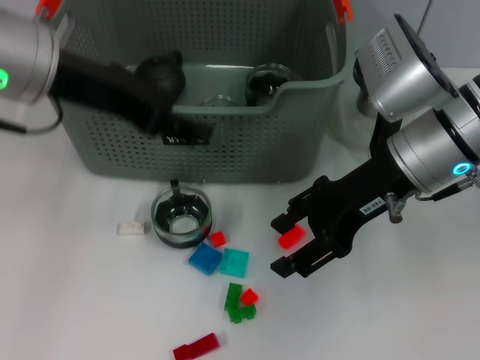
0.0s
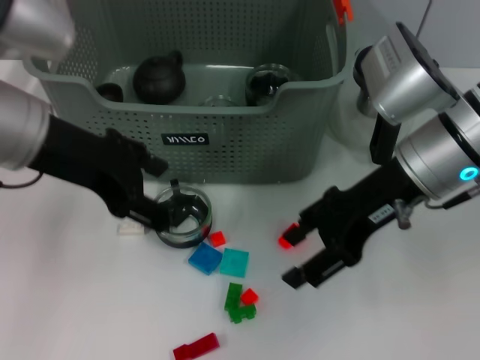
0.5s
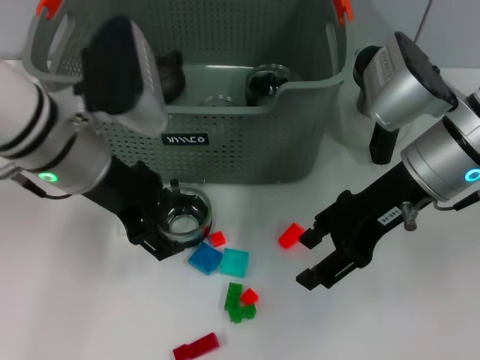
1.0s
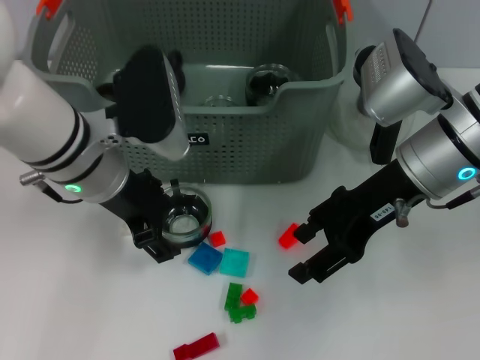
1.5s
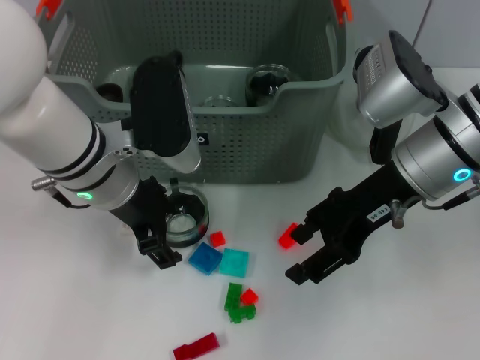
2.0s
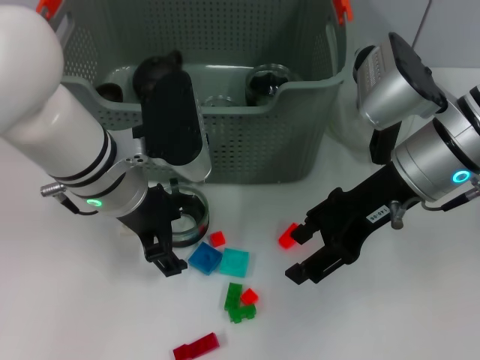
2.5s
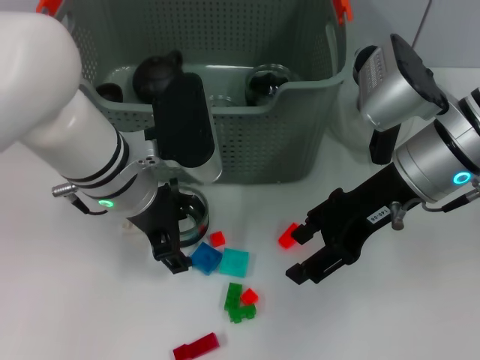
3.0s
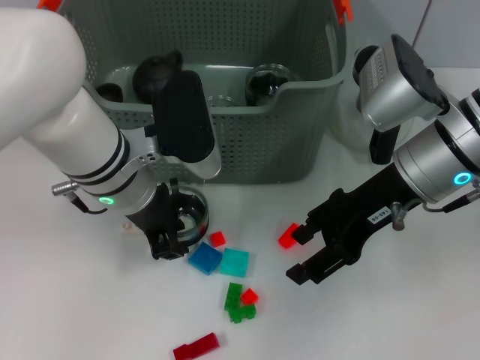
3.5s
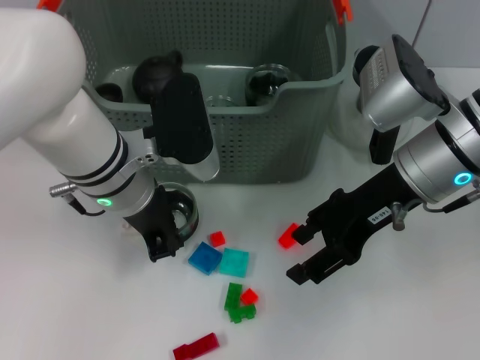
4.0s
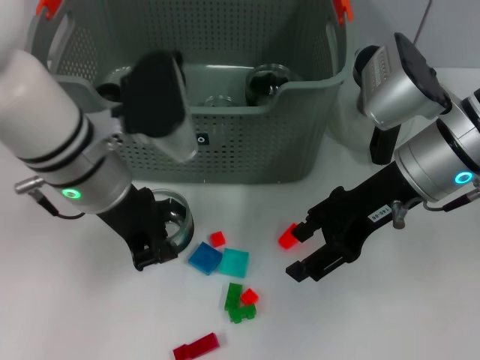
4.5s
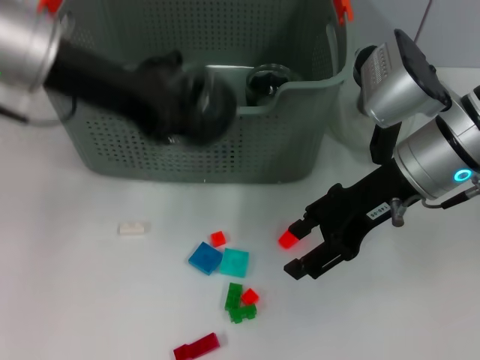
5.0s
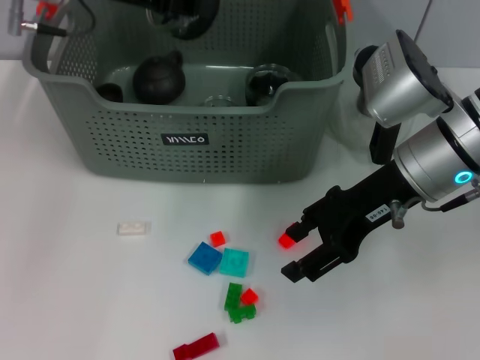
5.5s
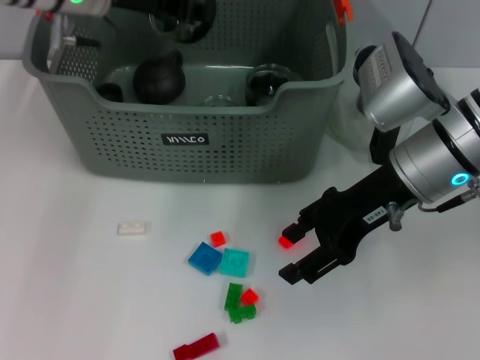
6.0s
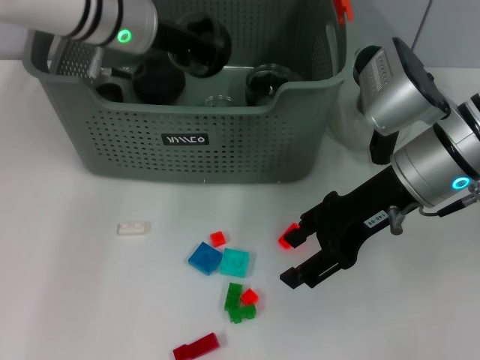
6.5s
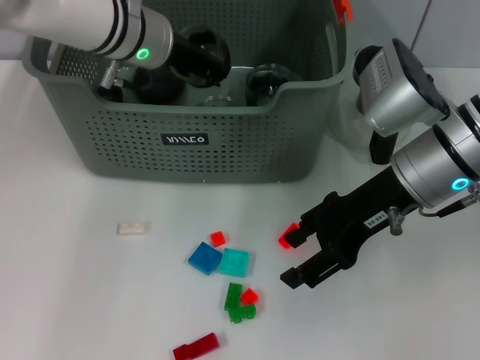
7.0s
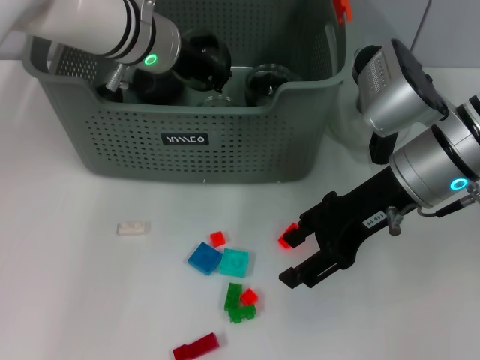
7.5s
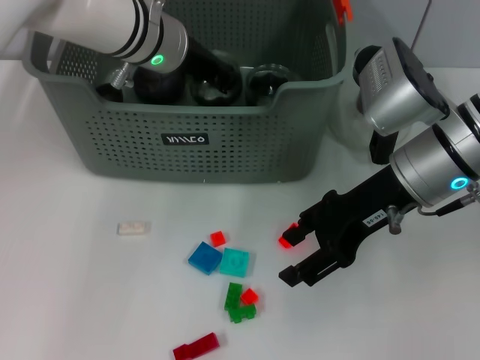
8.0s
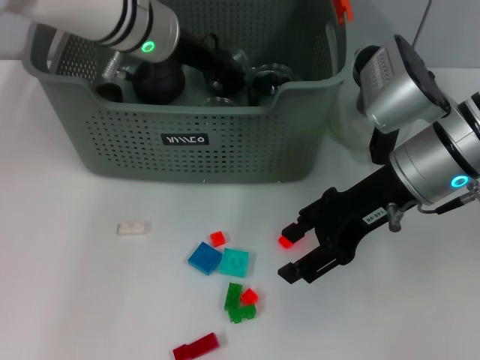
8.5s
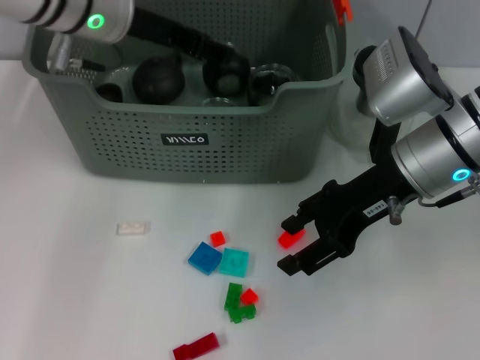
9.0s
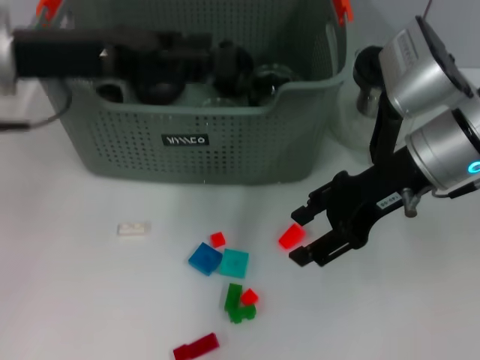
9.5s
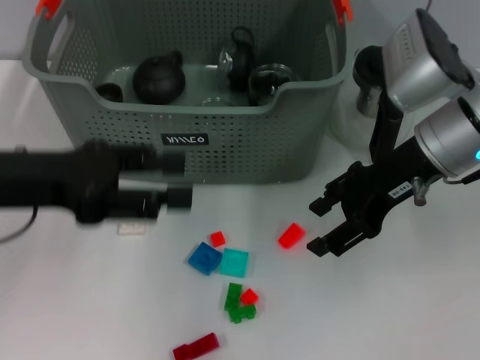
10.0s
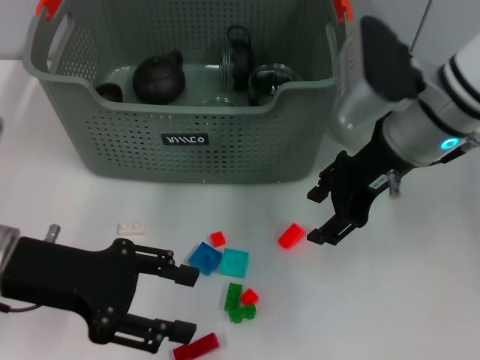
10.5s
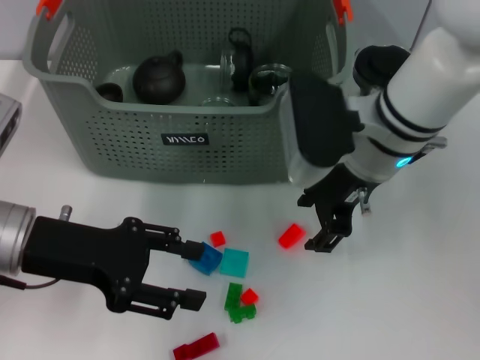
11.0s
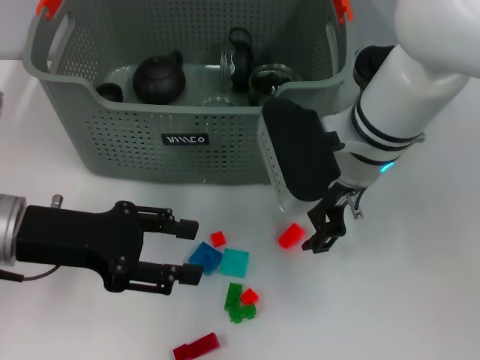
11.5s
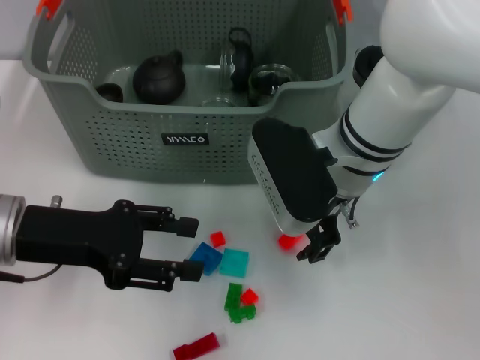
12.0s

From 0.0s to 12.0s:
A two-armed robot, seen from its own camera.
Task of the whole recording: pick up the teacup on the table and place it into the storage bin, pick up the block on the table and place it into the storage bin.
Step, from 0.0s to 3.5s: Grasp the cup with left gripper.
Step, from 4.0s to 9.5s: Place the cup in the storage box with left gripper.
From 0.0s to 2.0s: The left gripper heads downward and to the right, covering roughly 15 cm.
From 2.0s to 4.0s: The left gripper closes its fingers.
From 4.0s to 6.0s: The left gripper travels forward, upward and to the left by some 15 cm.
From 6.0s to 8.0s: The left gripper shifts some 5 cm to the right.
From 8.0s to 10.0s: The left gripper goes some 25 cm backward and to the left, and opens its fingers.
From 10.0s to 12.0s: The right gripper travels to the left by about 10 cm, while the left gripper heads downward, covering approximately 5 cm.

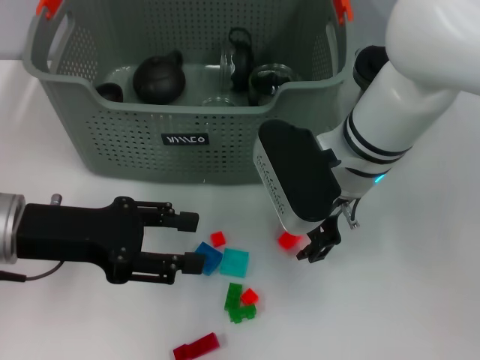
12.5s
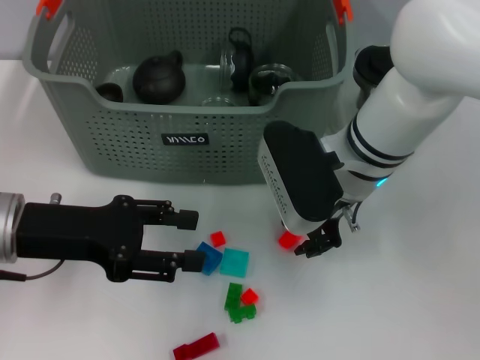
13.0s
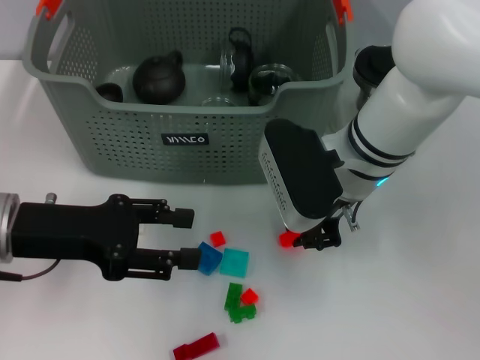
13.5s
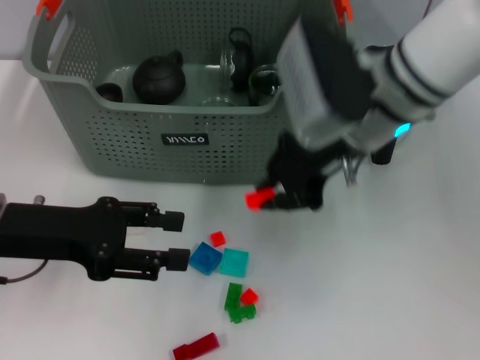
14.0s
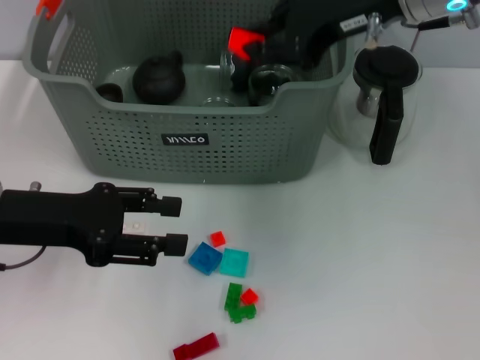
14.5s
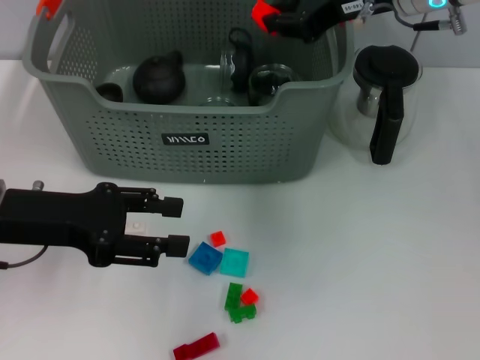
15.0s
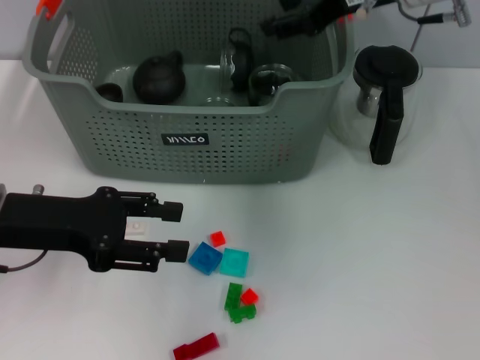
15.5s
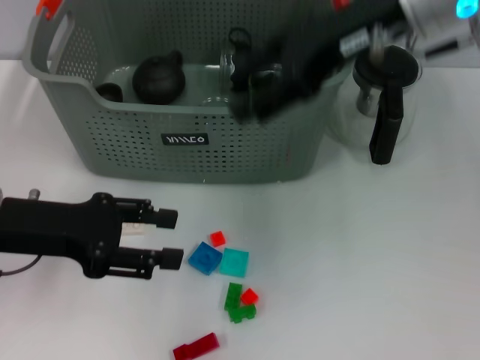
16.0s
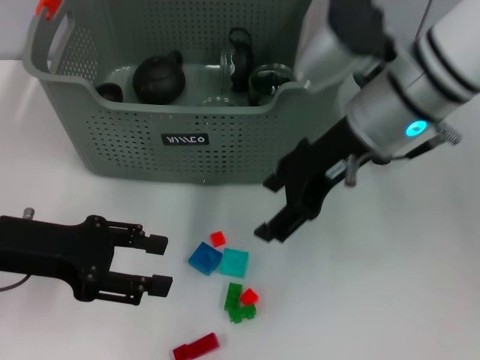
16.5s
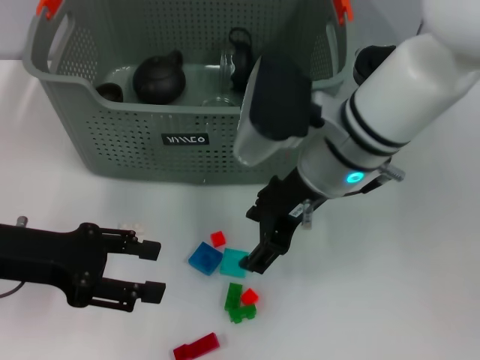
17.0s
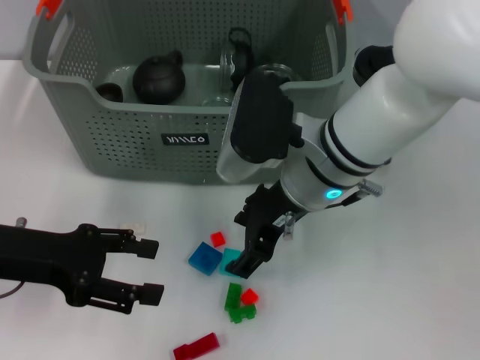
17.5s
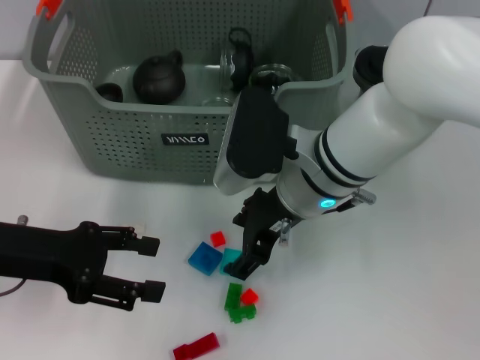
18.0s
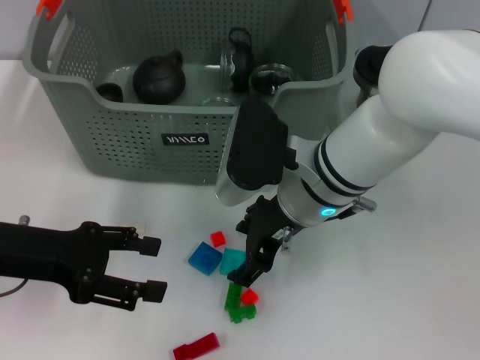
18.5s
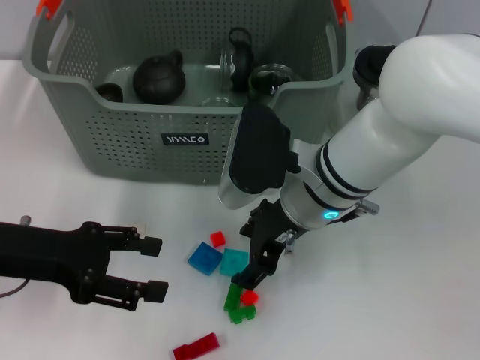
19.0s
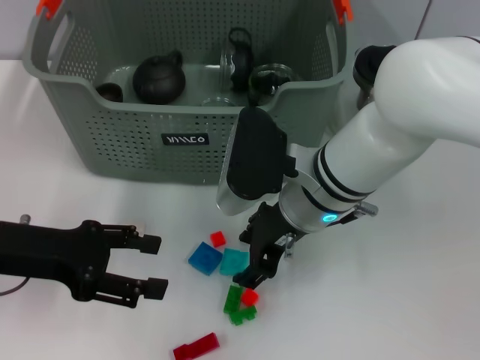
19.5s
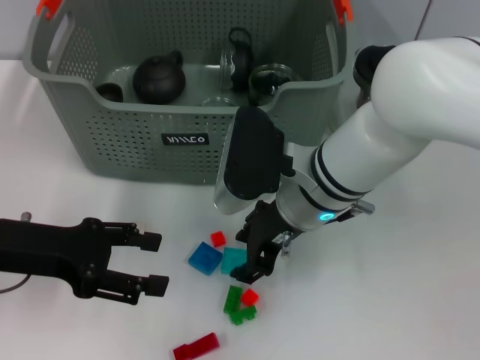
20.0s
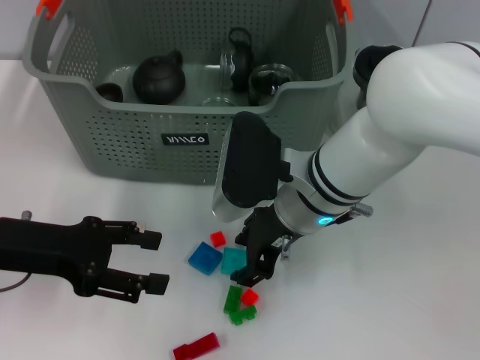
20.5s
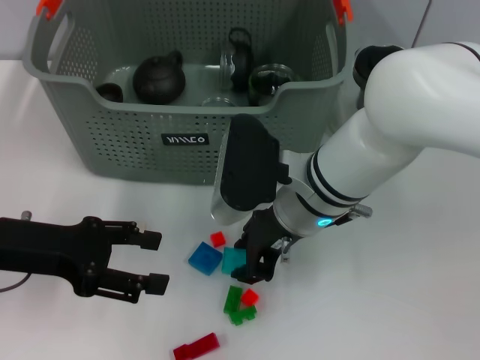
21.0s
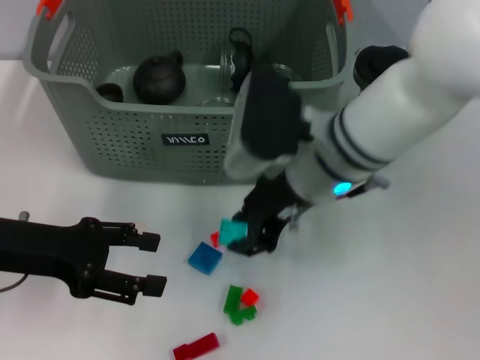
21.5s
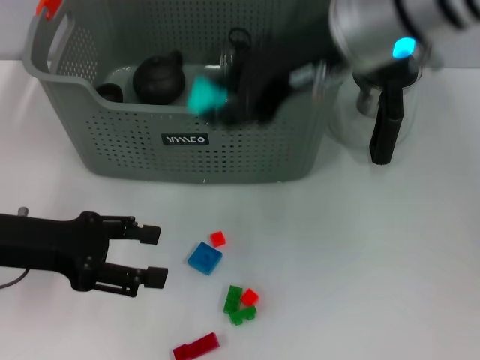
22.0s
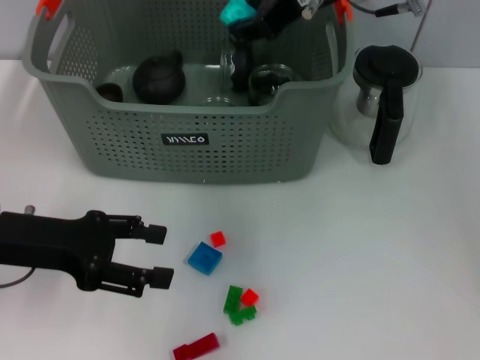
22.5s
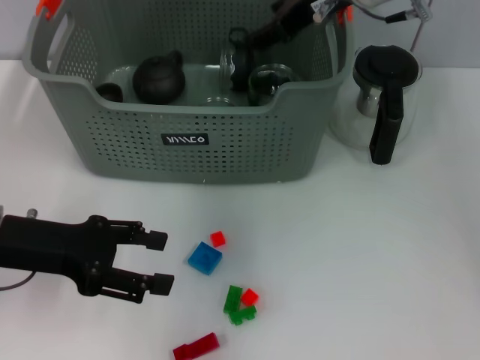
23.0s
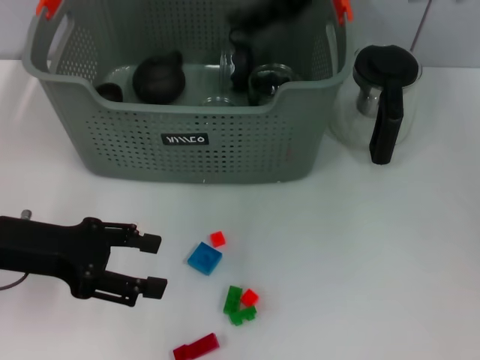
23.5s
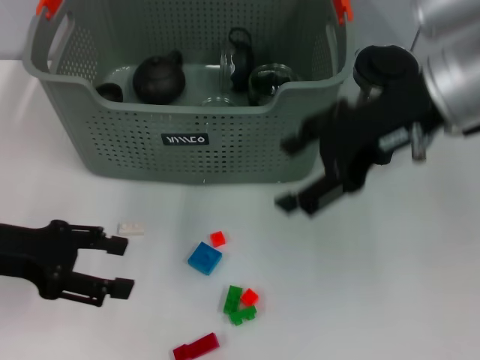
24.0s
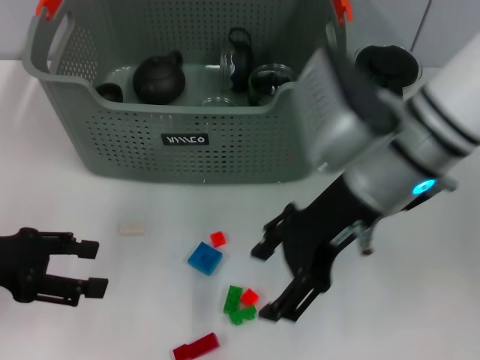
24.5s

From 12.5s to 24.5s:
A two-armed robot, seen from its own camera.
Task of the whole recording: pick up the teacup on the table and place it into the storage bin, pick up the block on the table and place it into the storage bin.
Step, from 13.5s to 15.5s: Place the orange block in the storage box with right gripper.
Step, from 16.0s to 20.5s: Grasp the light blue block with right gripper.
Step, from 21.0s to 23.0s: Place the light blue block in the storage box with right gripper.
From 12.5s to 14.5s: The right gripper heads upward and to the right, covering roughly 15 cm, and closes up.
From 14.5s to 16.5s: The right gripper goes roughly 5 cm downward, and opens.
From 16.5s to 18.5s: The right gripper goes approximately 10 cm downward and to the left.
From 18.5s to 20.5s: Neither gripper changes place.
From 20.5s to 22.5s: The right gripper is displaced upward and forward by about 20 cm.
From 22.5s to 24.5s: The left gripper moves to the left, some 5 cm. Meanwhile the right gripper shifts roughly 15 cm backward and downward, and opens.

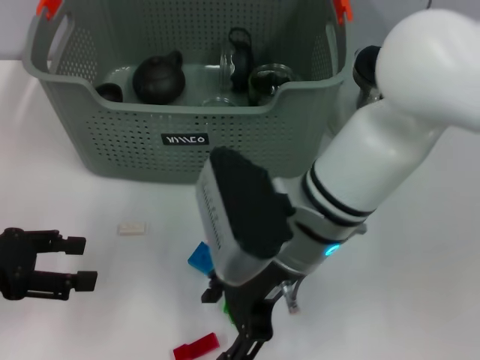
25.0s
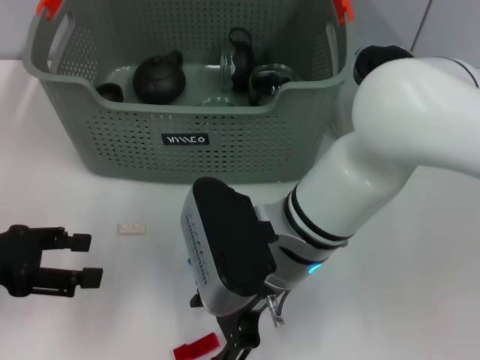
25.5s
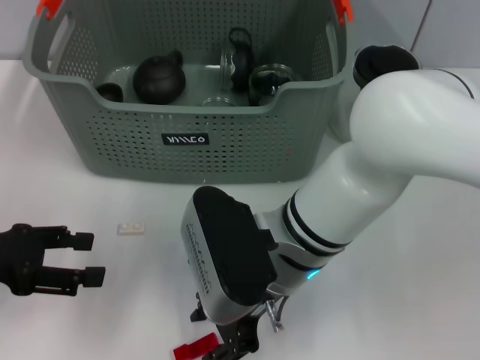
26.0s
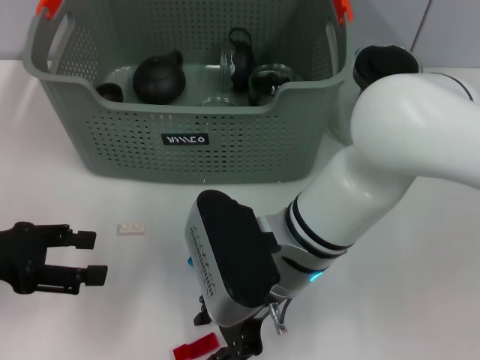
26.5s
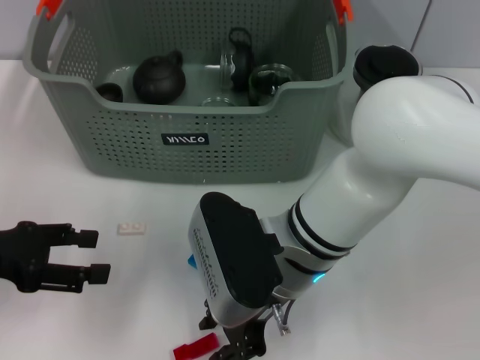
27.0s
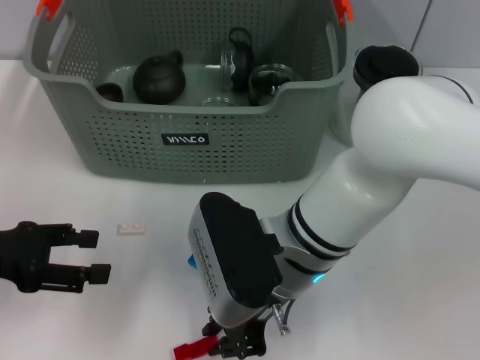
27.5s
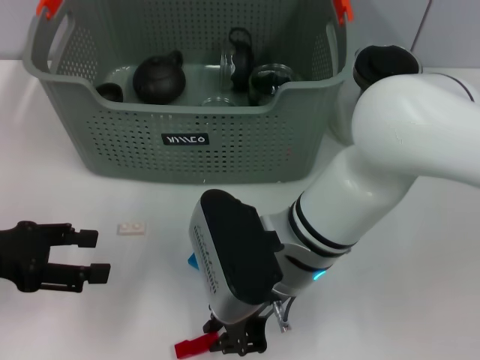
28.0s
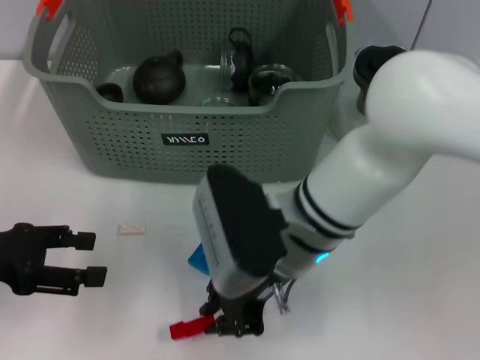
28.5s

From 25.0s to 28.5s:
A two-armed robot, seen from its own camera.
Task of the whole recording: pick up the teacup on the table and place it into the storage bin, pick up the block on the table and place it into the storage bin.
Step, from 25.0s to 28.0s: Grasp the red block with right gripper.
From 25.0s to 27.0s: The right gripper closes up.
From 27.0s to 28.5s: The grippers move only a little.
